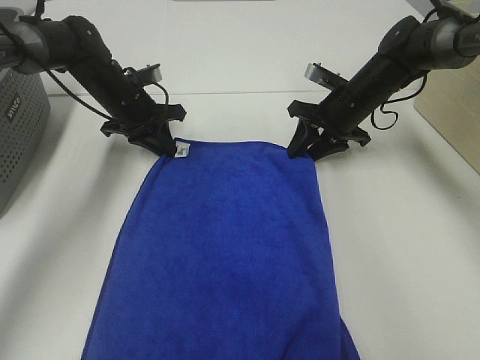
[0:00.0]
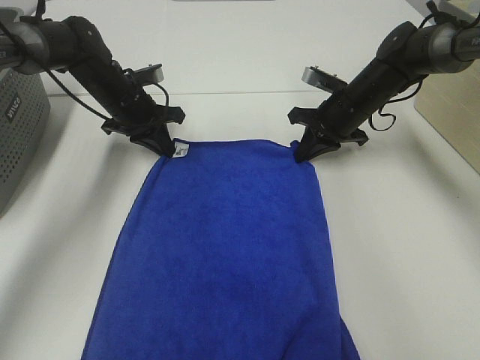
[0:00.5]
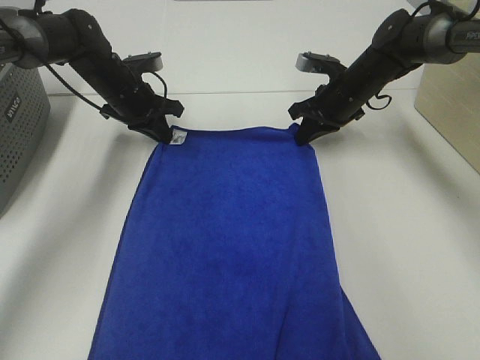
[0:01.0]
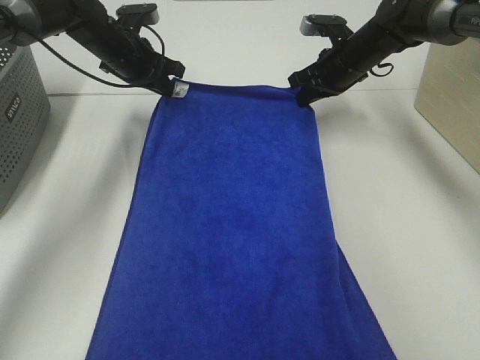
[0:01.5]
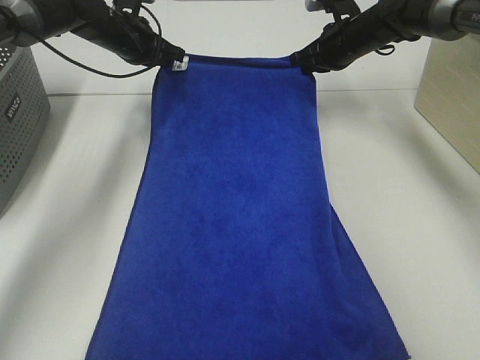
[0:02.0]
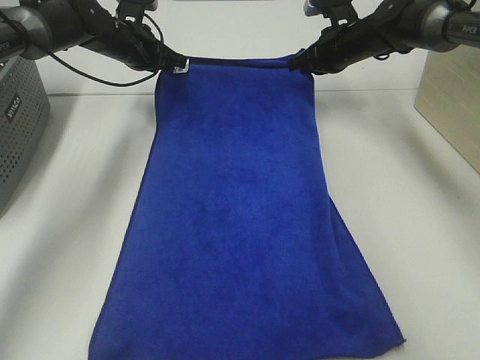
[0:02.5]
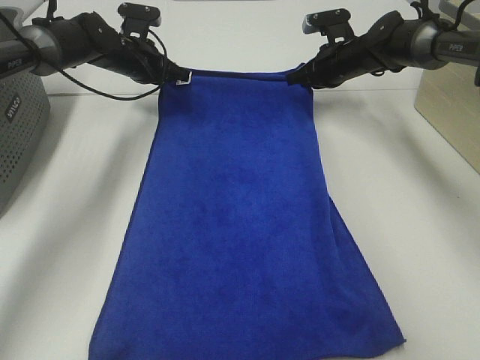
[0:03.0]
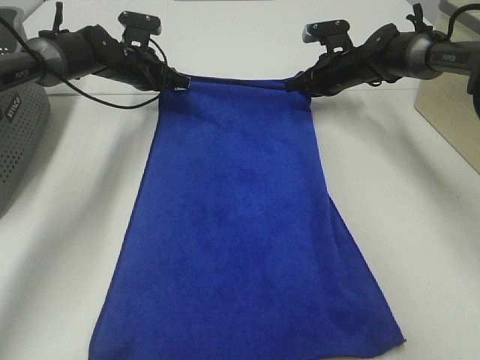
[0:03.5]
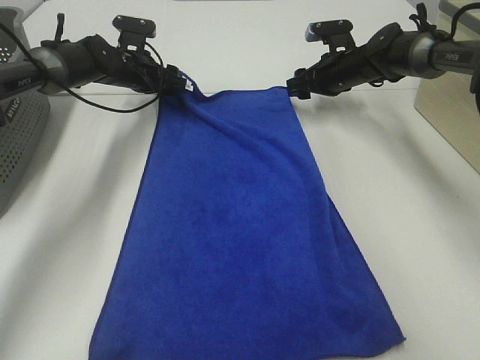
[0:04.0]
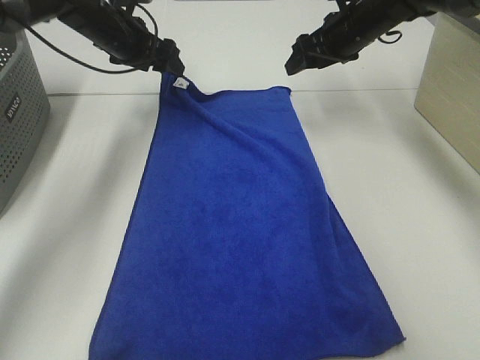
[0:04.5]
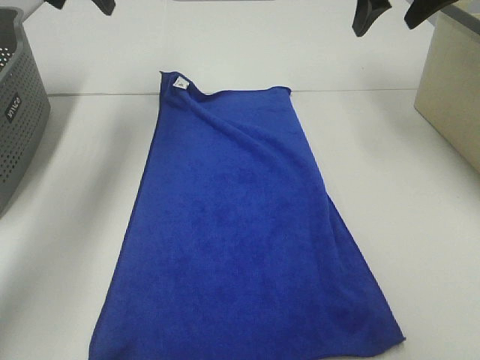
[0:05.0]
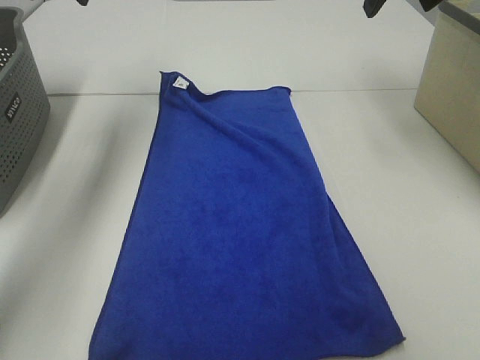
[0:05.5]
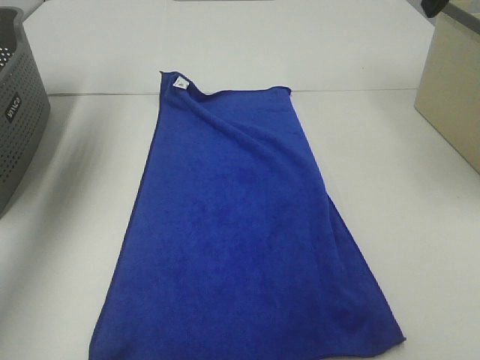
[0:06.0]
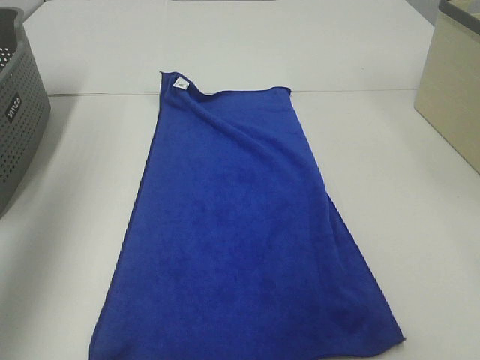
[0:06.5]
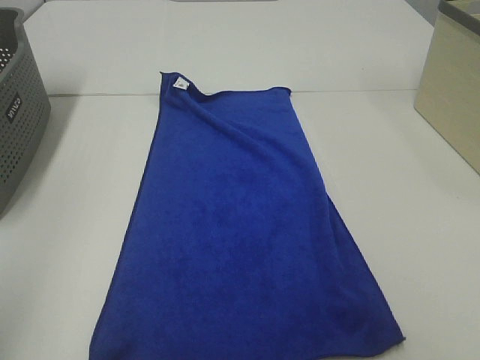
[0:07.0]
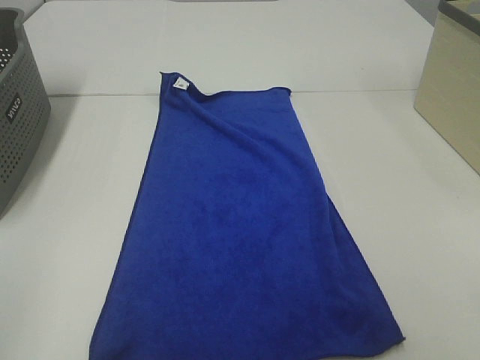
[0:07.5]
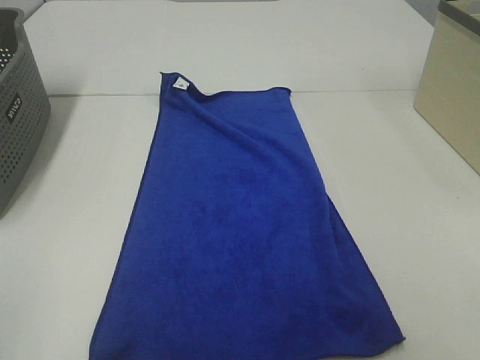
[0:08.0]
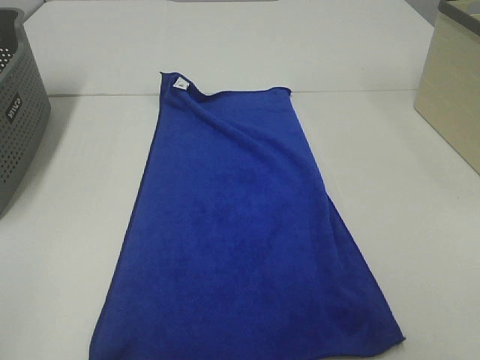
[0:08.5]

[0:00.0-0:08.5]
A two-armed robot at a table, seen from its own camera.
Task of the whole recording: Remove the towel and place it.
0:00.0 to 0:02.0: Both grippers travel together upward and forward, about 10 cm. The right gripper closes its fingers.
0:02.0 to 0:04.0: The two grippers go roughly 5 cm downward. The left gripper opens its fingers, while the right gripper opens.
0:04.0 to 0:06.5: Both grippers move backward and upward, roughly 50 cm.
0:06.5 to 0:08.5: The left gripper goes some 25 cm backward and downward.

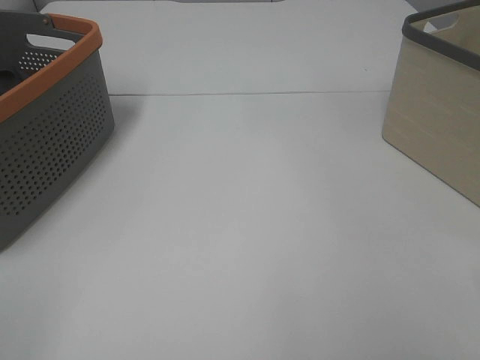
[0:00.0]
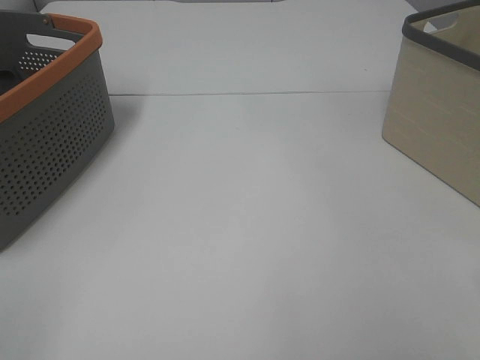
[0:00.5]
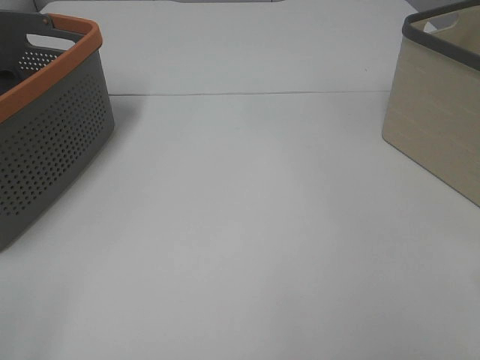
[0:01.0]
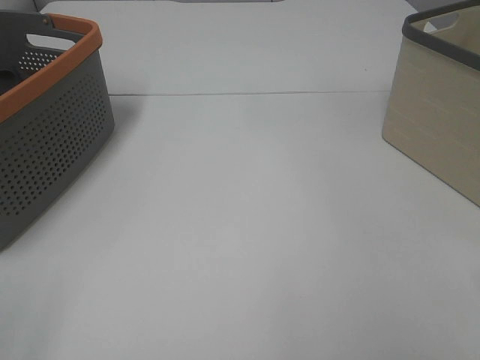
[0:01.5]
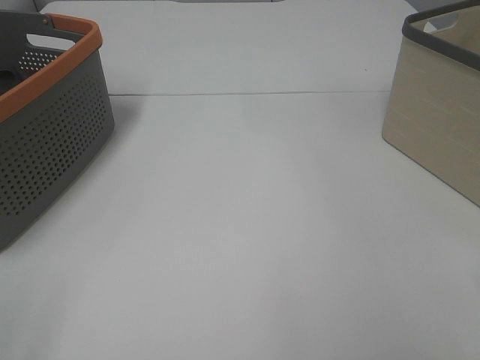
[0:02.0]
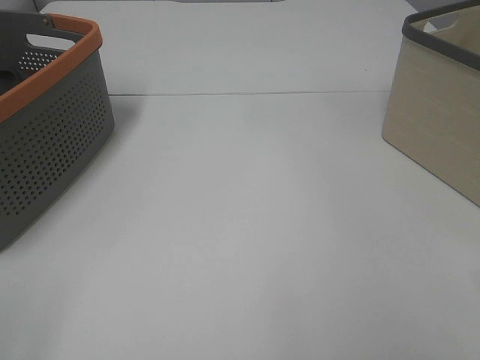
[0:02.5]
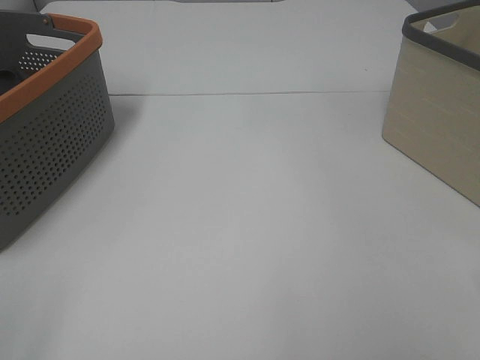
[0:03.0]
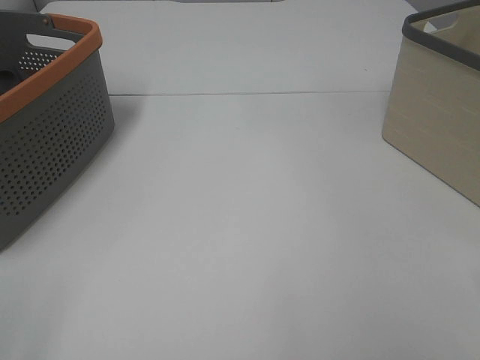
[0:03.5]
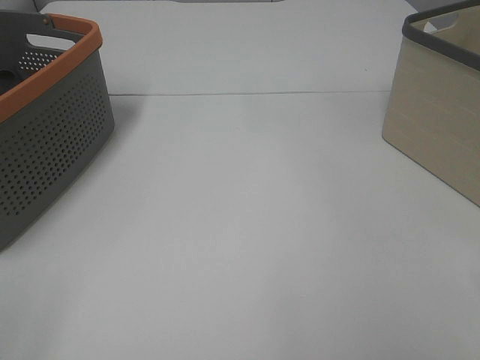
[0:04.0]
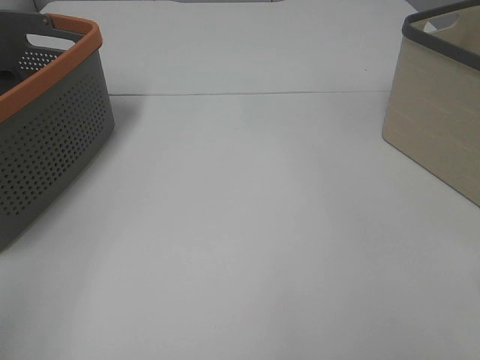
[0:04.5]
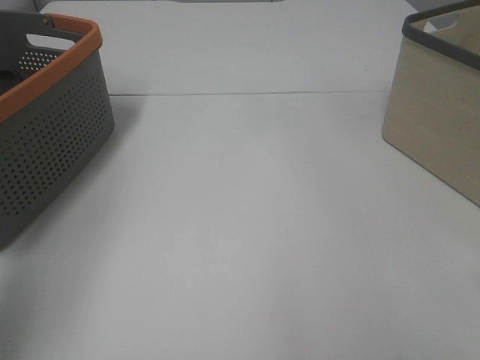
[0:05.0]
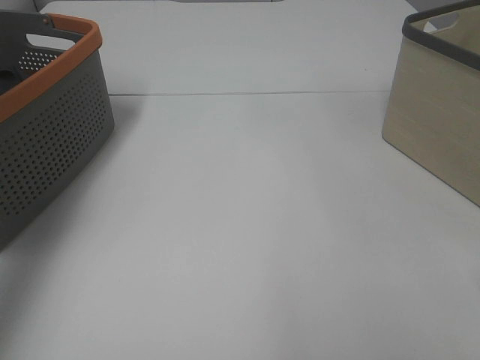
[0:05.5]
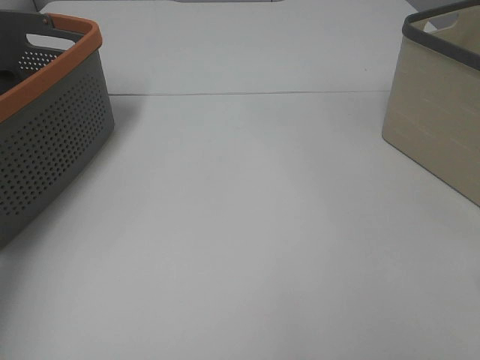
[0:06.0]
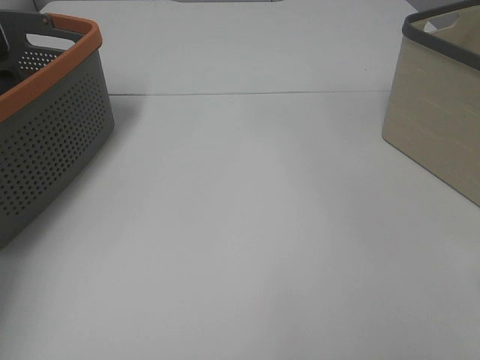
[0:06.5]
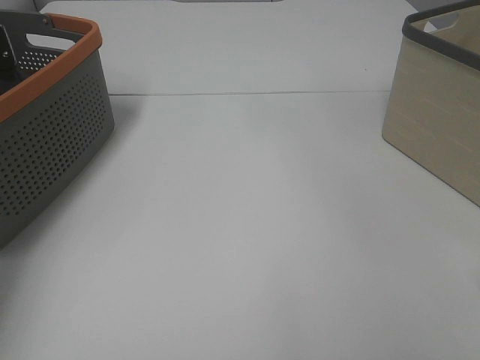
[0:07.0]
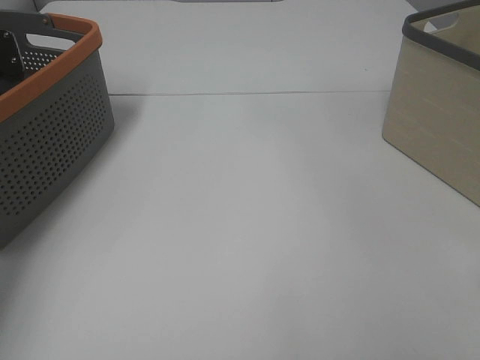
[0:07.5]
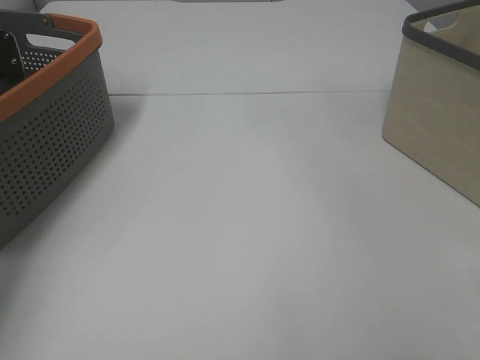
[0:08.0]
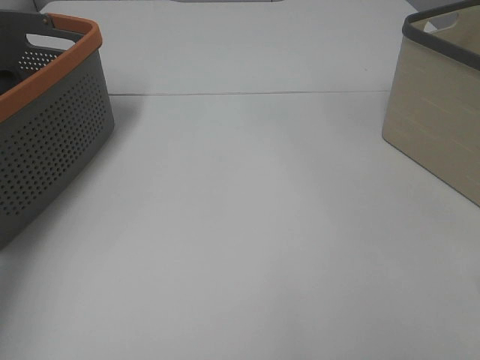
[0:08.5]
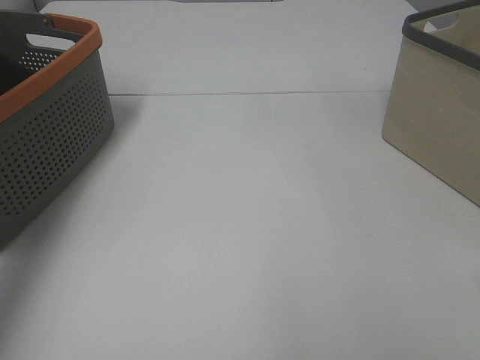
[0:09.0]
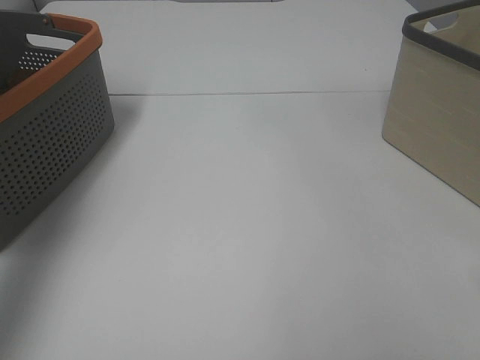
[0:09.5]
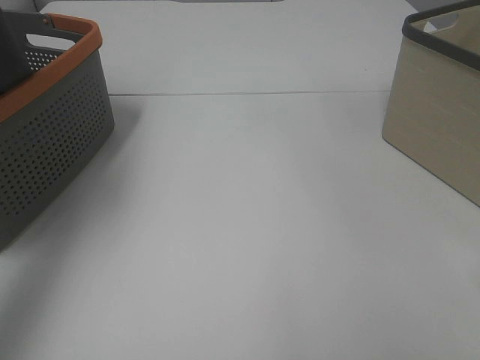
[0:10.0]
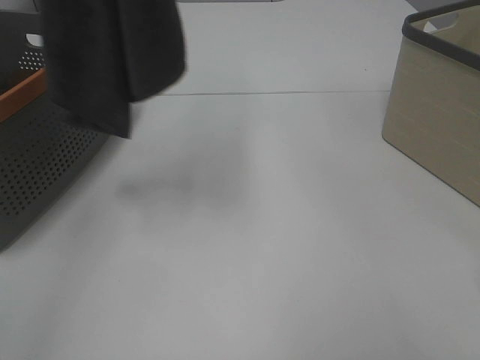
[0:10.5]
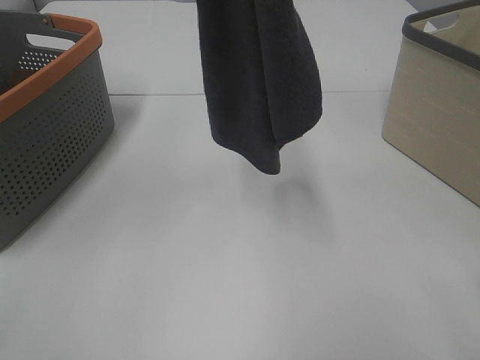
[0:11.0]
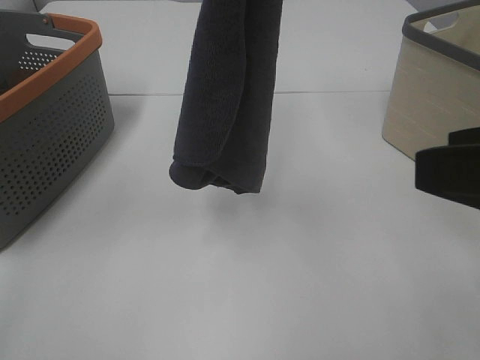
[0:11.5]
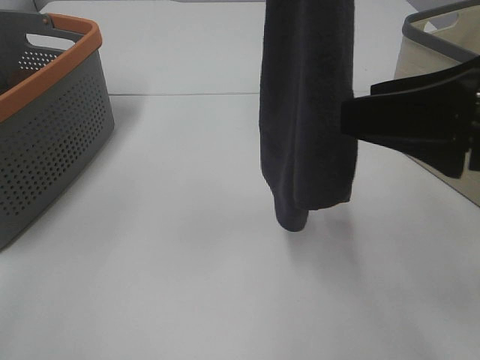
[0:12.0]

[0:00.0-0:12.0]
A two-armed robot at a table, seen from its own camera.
Task of the whole recording: Remove the towel and place it.
0:00.0 to 0:04.0: The two grippers keep their place.
0:04.0 to 0:06.0: The left gripper shifts some 40 cm forward.
0:08.0 to 0:10.0: The left gripper is displaced upward and backward by roughly 40 cm.
0:10.0 to 0:12.0: The left gripper travels to the right by about 25 cm; the right gripper travels forward and to the left by some 20 cm.

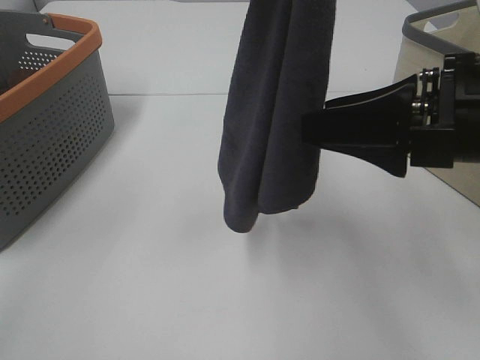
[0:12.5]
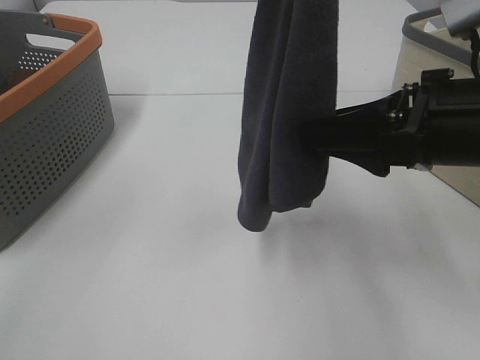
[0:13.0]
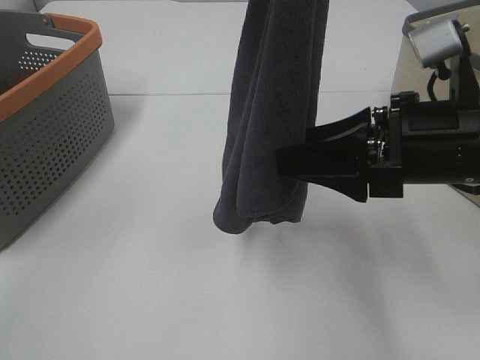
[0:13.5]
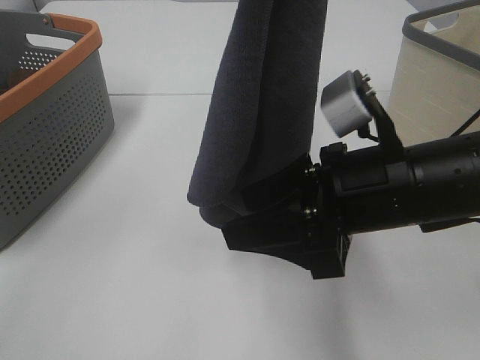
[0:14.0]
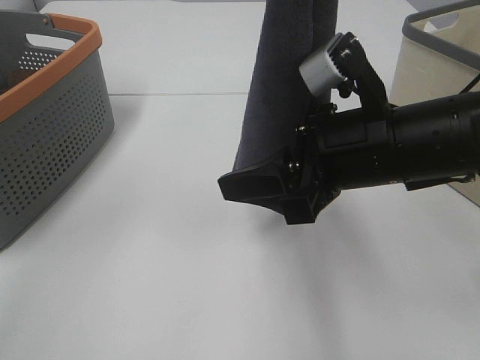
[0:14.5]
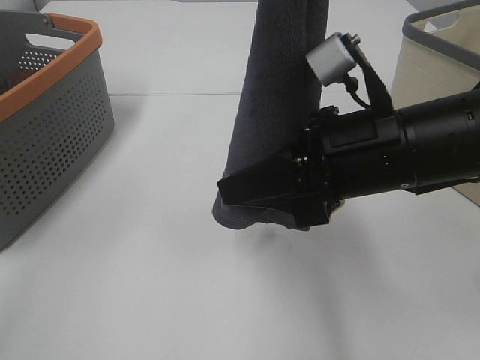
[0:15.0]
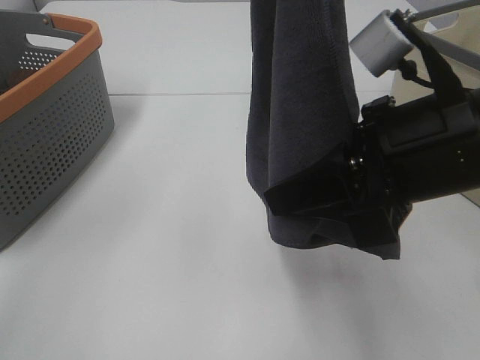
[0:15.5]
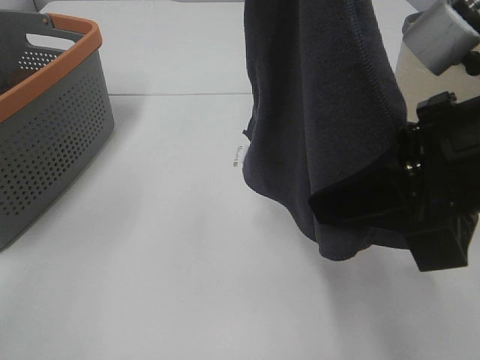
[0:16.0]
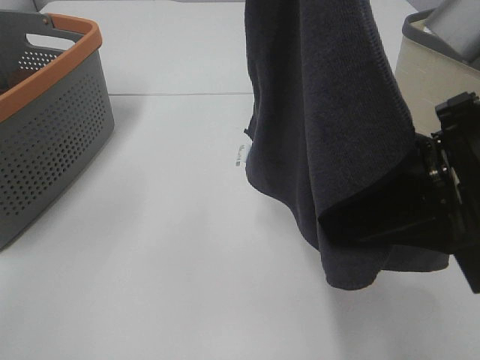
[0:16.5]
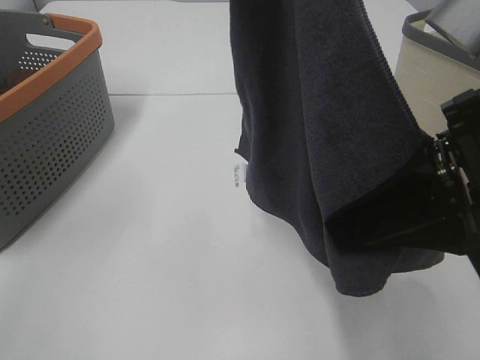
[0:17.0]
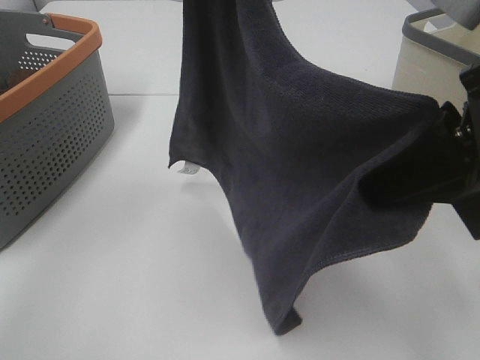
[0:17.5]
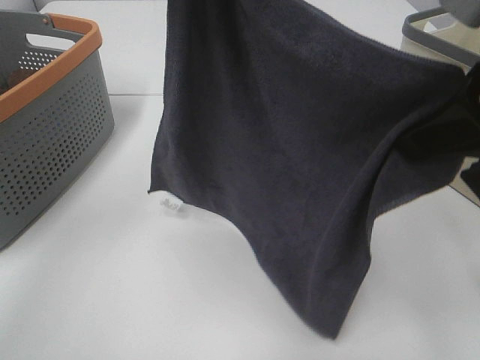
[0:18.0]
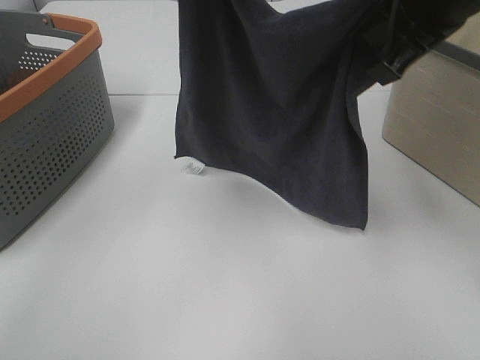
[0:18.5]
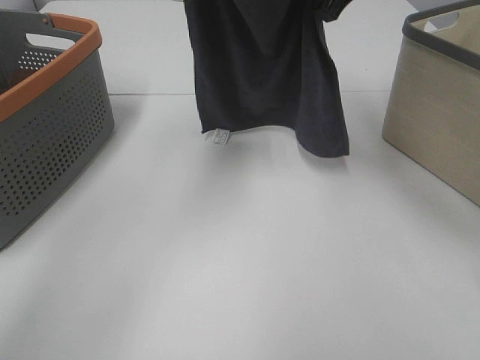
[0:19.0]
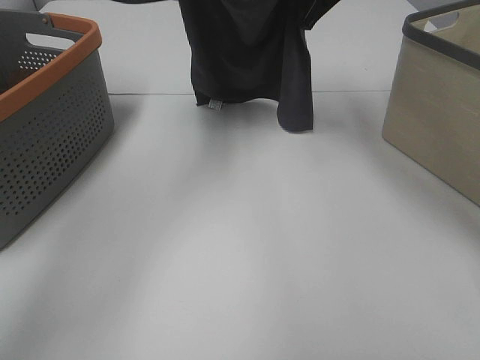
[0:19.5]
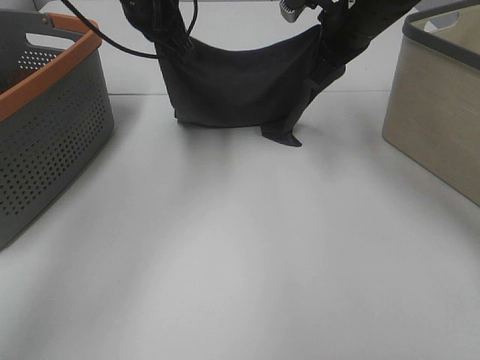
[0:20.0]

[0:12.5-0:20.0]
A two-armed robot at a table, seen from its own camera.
Task of the whole recording: Remove the towel and place it.
Step, 0:12.5 to 0:15.0: Right hand: grab a corner of the grey towel and straighten it.
Step, 0:15.5 to 0:17.0: Right hand: spread the grey towel flat on the table.
Step, 0:15.5 to 0:17.5: Left hand: spread the grey towel flat on the table.
0:12.5 to 0:14.5: The right gripper goes about 10 cm to the left and downward.
0:14.5 to 0:16.5: The right gripper moves upward and backward, about 10 cm, and closes up.
0:16.5 to 0:18.0: The left gripper shifts approximately 5 cm downward, while the right gripper shifts by roughly 5 cm.
0:18.0 to 0:20.0: The right gripper heads forward, covering some 25 cm. The left gripper shifts approximately 20 cm downward and forward.
